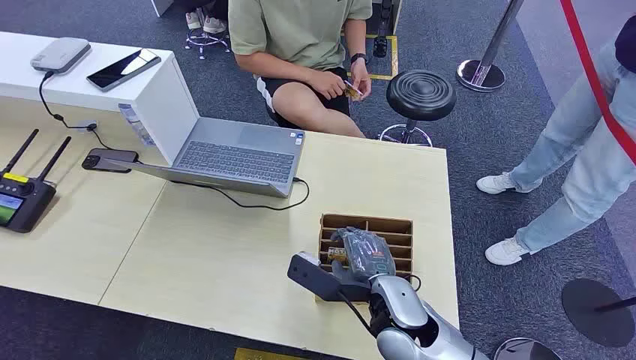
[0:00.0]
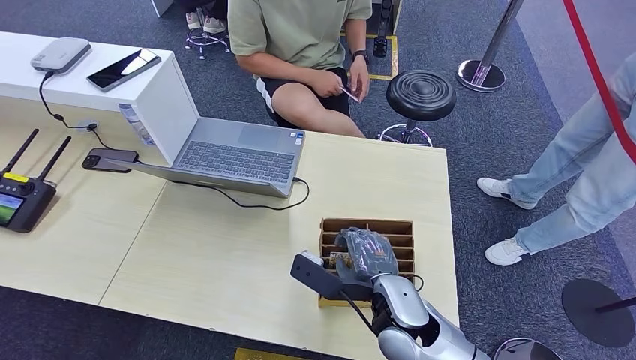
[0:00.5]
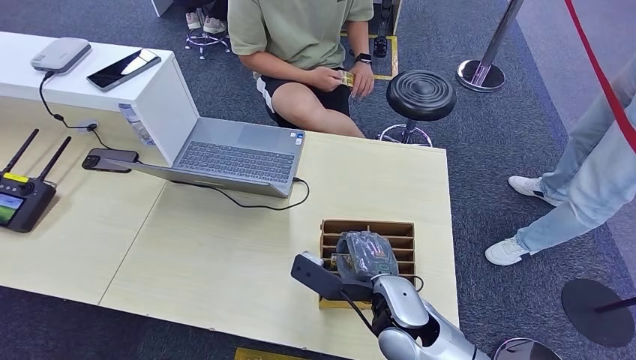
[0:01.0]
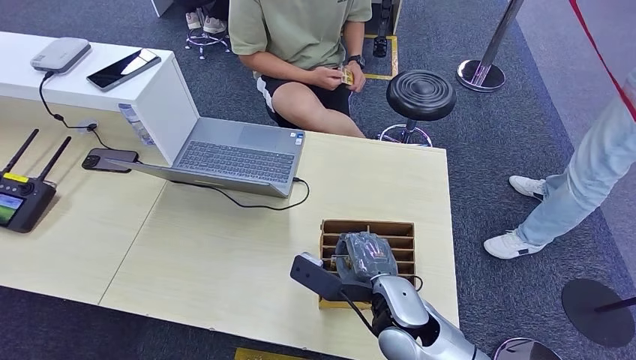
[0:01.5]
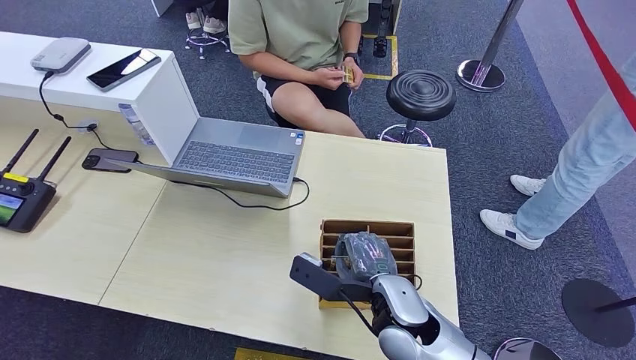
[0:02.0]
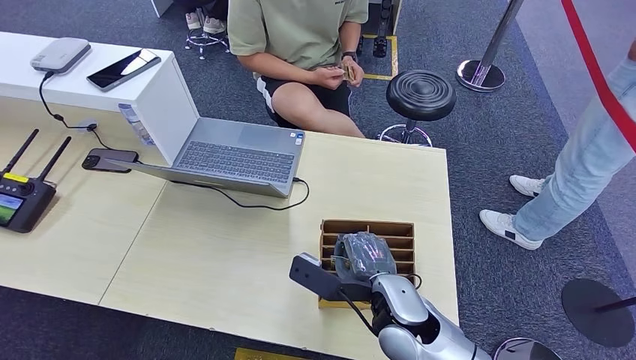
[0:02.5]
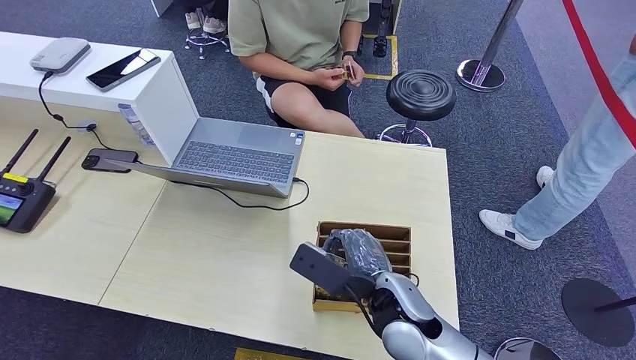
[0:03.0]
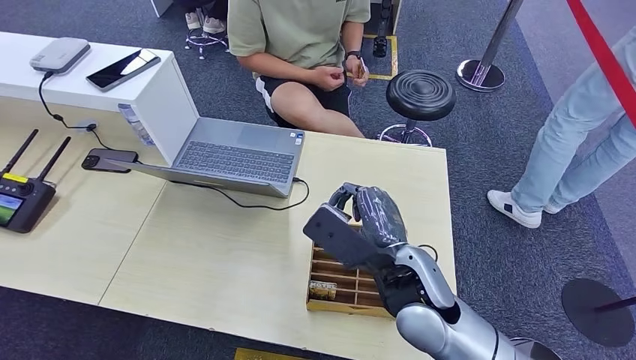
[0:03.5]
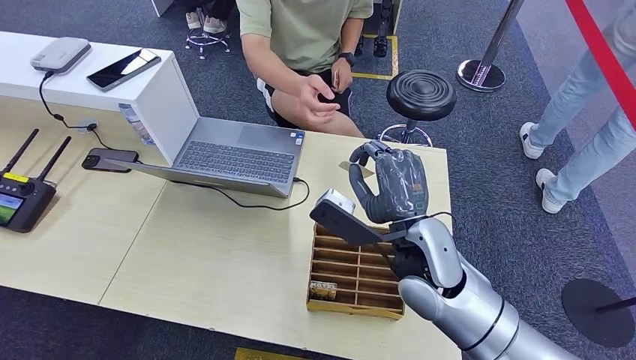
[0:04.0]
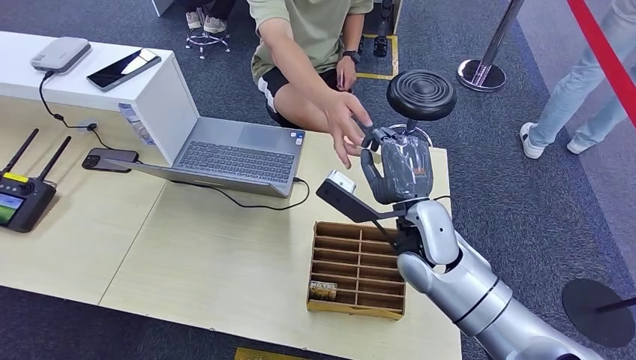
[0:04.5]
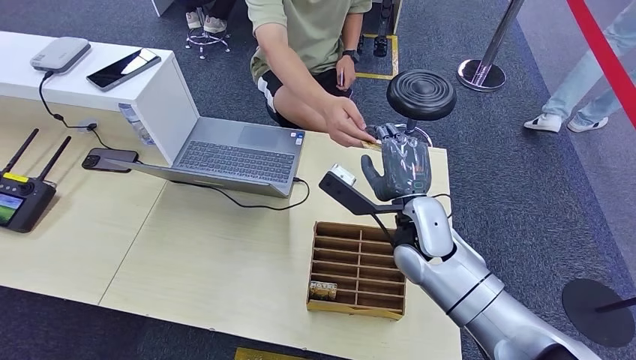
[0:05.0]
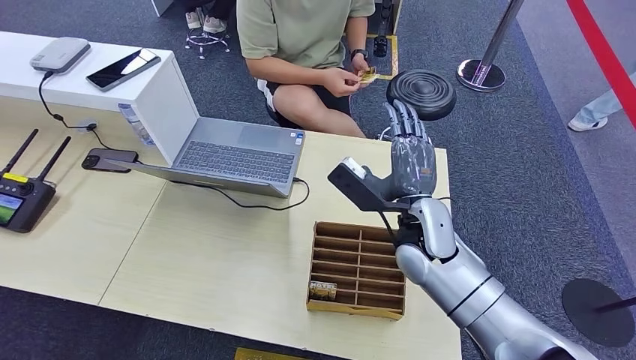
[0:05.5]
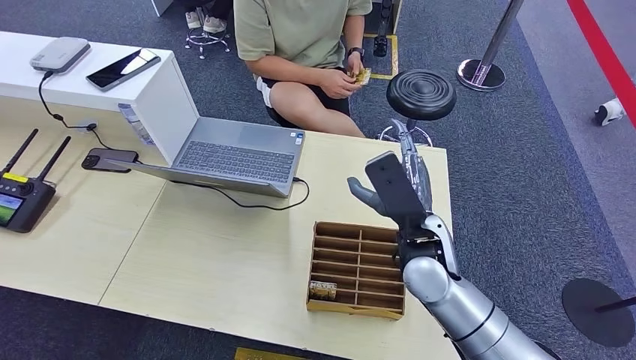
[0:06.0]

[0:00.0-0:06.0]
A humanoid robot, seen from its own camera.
Step, 0:00.0 to 0:03.5: Pick up the room card from the card holder.
Step, 0:04.0 to 0:06.0: Hand the room card to the target.
0:02.0 to 0:04.0: The right hand moves forward and upward, some 15 cm.
0:04.0 to 0:06.0: The right hand shifts approximately 15 cm backward and to the right.
